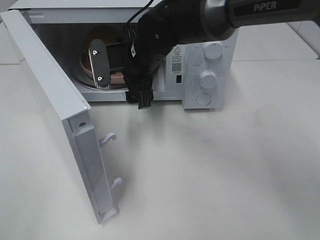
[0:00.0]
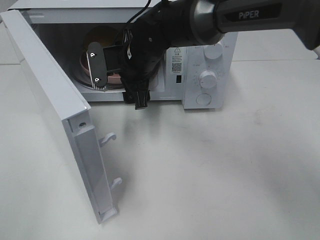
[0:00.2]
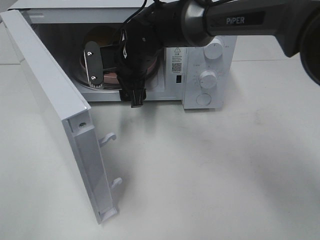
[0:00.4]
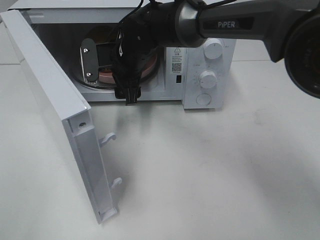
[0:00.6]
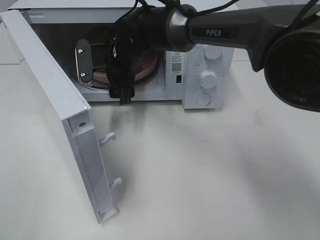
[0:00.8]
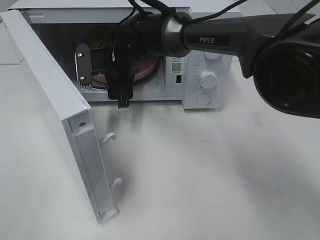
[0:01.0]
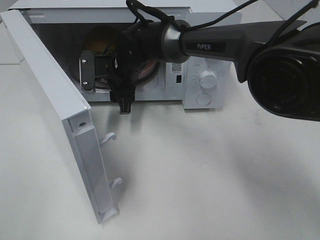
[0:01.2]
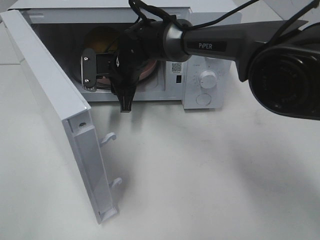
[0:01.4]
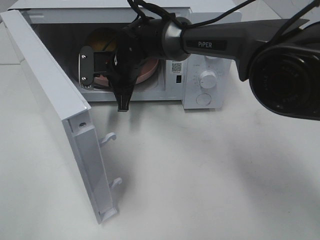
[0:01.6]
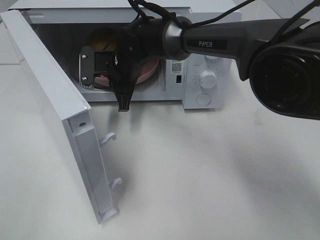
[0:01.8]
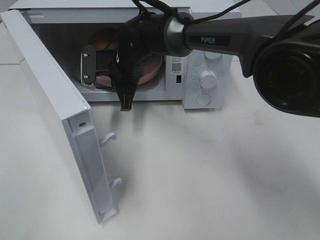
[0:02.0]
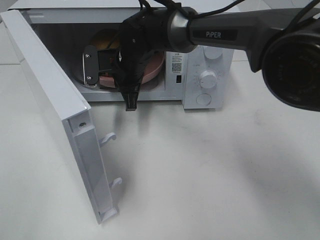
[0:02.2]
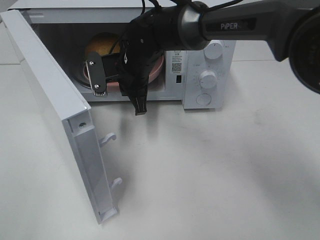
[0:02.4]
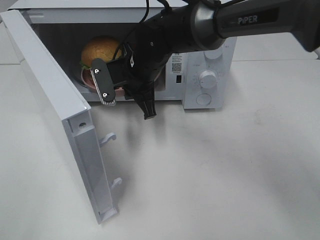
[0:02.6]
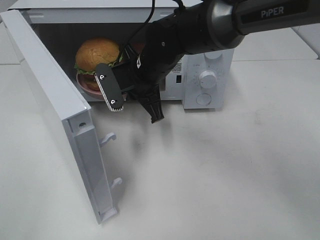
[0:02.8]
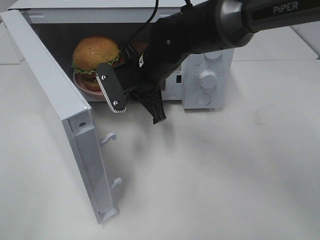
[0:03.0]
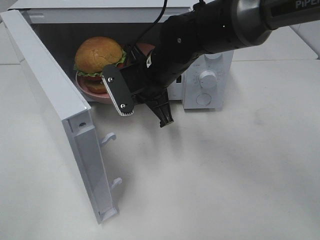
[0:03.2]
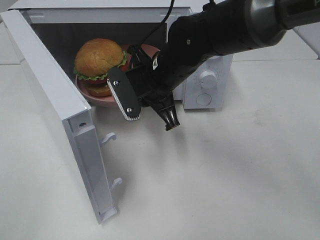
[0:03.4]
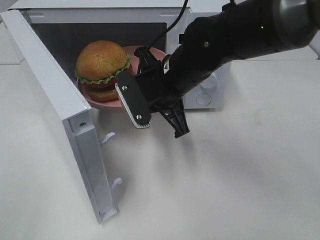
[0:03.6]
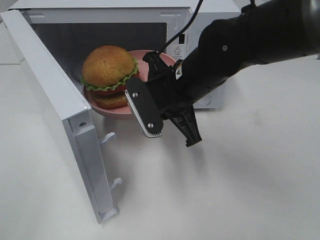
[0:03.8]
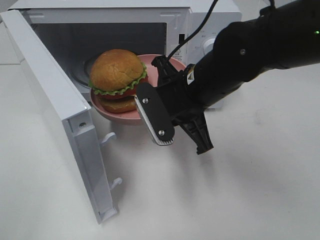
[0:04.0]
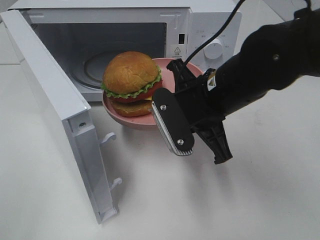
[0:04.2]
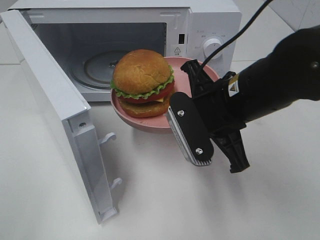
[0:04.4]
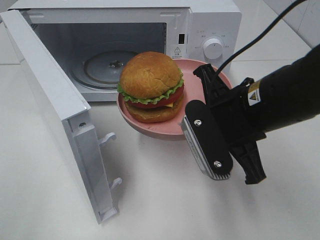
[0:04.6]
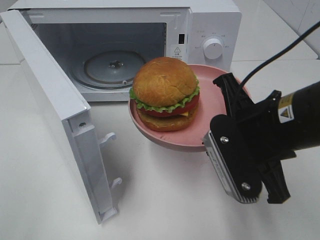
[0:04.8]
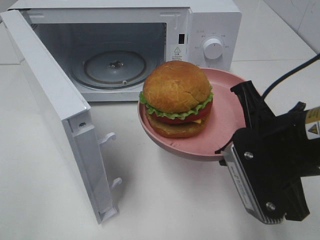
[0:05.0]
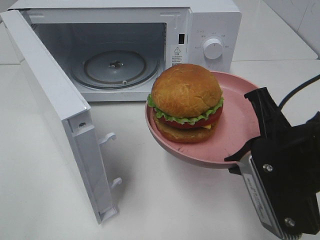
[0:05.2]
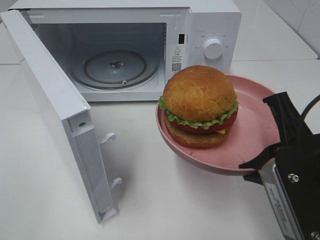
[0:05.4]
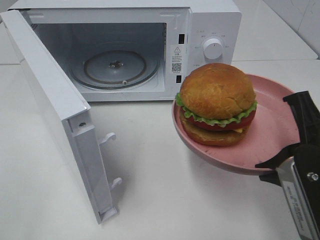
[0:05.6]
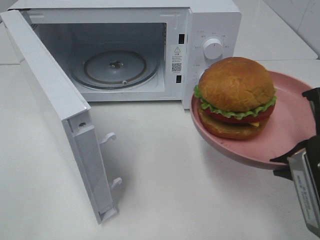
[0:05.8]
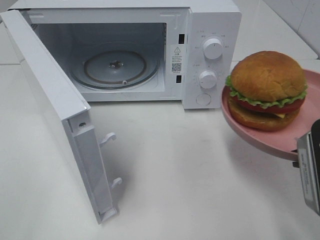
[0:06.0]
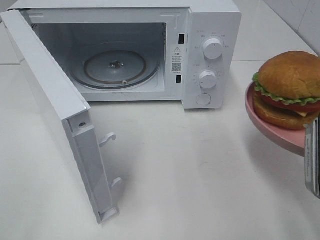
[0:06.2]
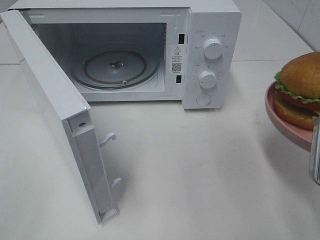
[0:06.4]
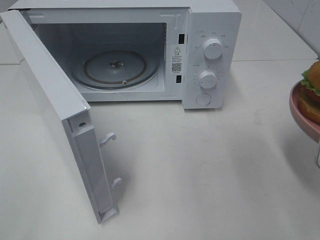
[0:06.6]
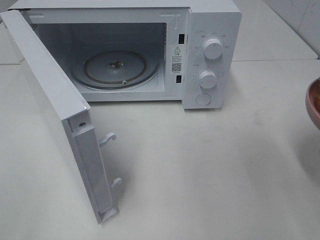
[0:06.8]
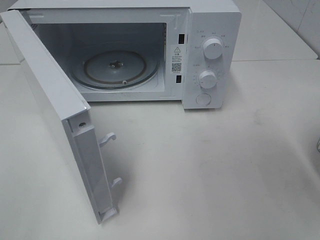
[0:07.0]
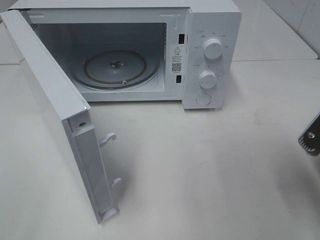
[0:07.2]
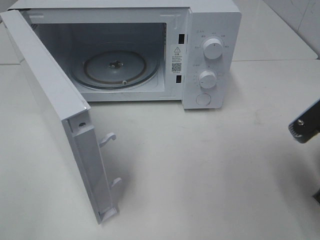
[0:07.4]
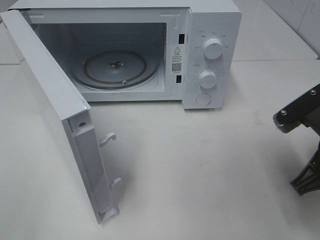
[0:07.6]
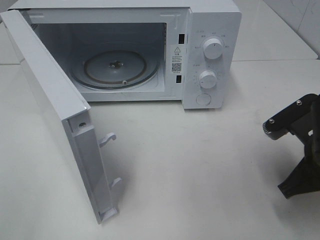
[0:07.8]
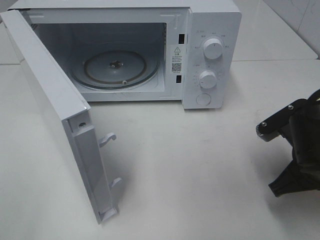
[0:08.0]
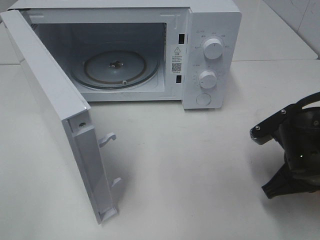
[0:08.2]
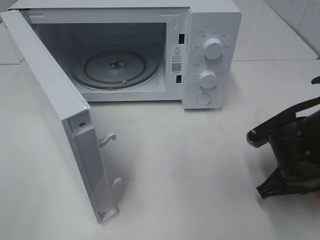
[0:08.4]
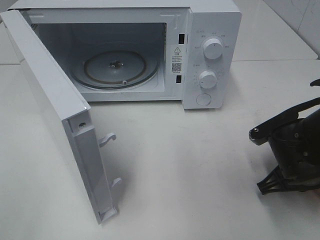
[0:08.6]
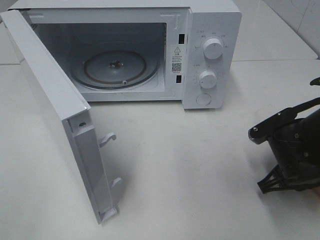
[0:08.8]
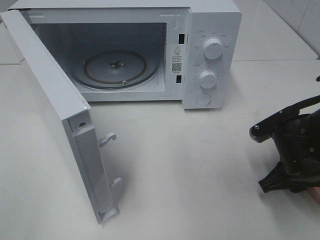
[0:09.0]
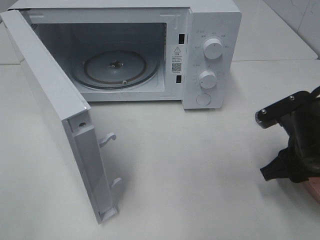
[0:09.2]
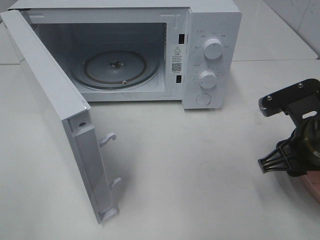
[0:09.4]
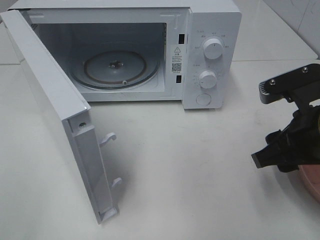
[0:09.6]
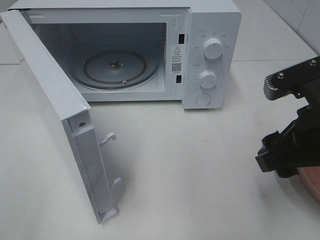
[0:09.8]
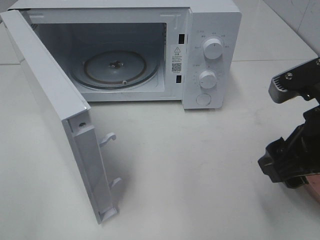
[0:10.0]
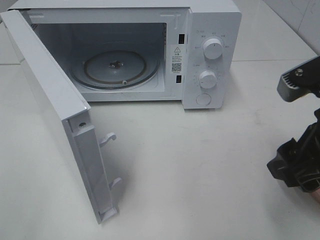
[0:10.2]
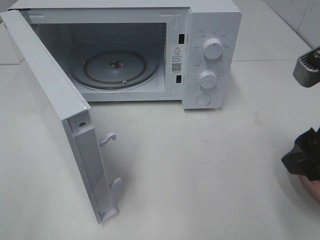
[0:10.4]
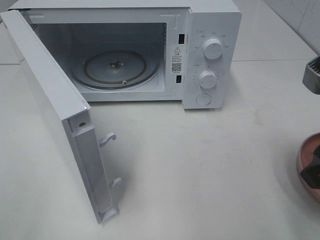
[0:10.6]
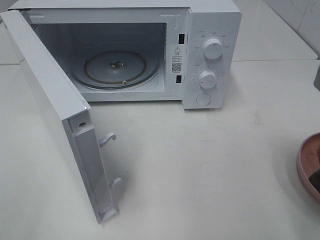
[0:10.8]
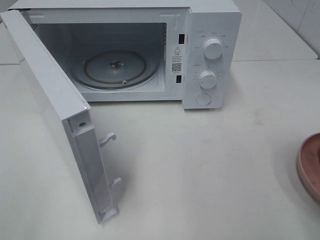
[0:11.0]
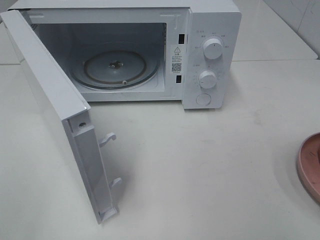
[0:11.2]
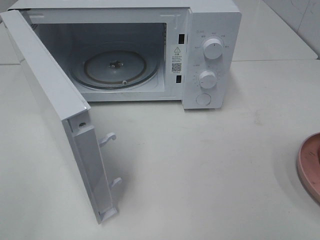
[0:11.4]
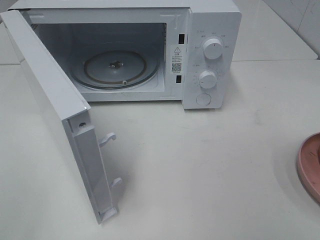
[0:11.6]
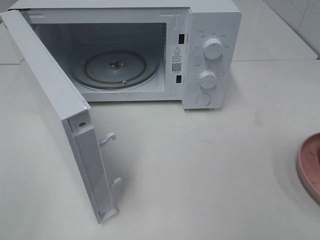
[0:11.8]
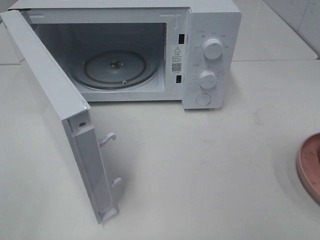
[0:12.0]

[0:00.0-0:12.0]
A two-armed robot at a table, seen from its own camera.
Task of the whole recording: Heat the burger.
Step, 0:01.8 to 0:09.4: Right hand: place the plate on the table.
0:00.0 to 0:01.6: The right gripper shifts by some 5 cm, and closes its fingers.
0:01.6 to 0:03.0: The right gripper goes about 5 cm backward.
0:03.0 to 0:04.4: The right gripper heads backward and to the right, covering roughly 15 cm.
0:04.4 to 0:06.0: The right gripper is displaced to the right and backward by about 15 cm.
0:06.0 to 0:07.6: The right gripper moves some 5 cm.
0:07.6 to 0:09.0: The right gripper goes some 10 cm downward, and opens.
0:09.0 to 0:10.4: The right gripper travels upward and backward by approximately 20 cm.
0:10.4 to 0:12.0: The right gripper moves backward and to the right, some 15 cm.

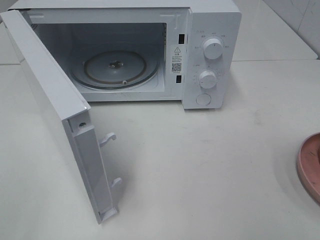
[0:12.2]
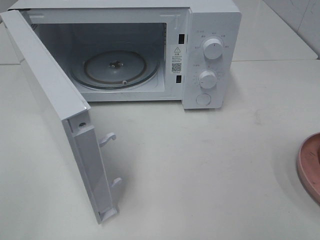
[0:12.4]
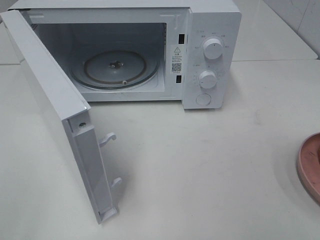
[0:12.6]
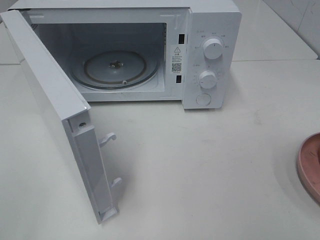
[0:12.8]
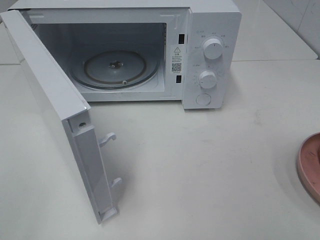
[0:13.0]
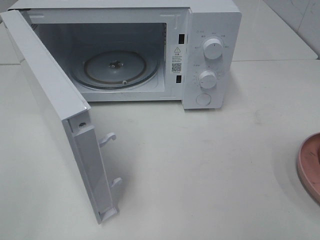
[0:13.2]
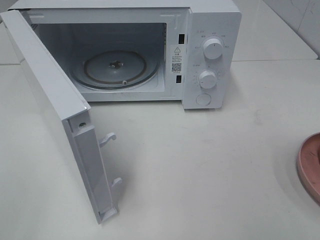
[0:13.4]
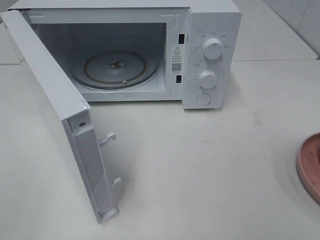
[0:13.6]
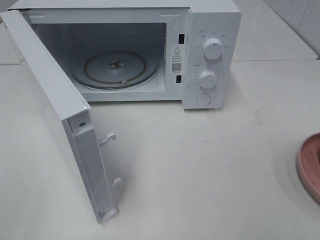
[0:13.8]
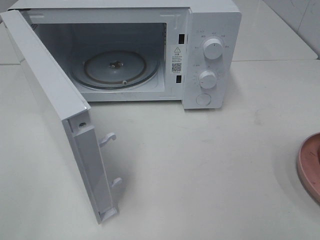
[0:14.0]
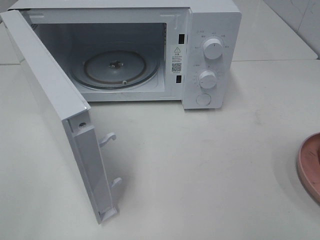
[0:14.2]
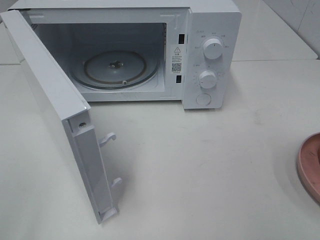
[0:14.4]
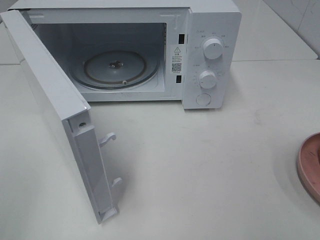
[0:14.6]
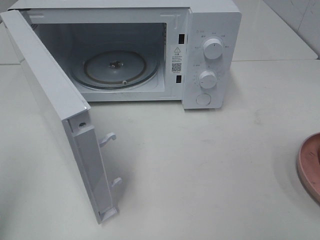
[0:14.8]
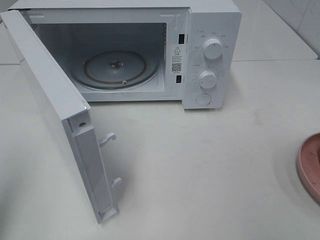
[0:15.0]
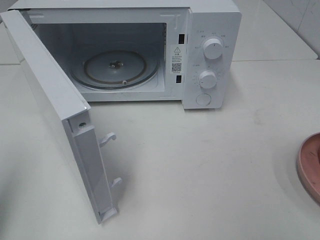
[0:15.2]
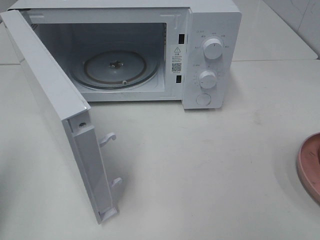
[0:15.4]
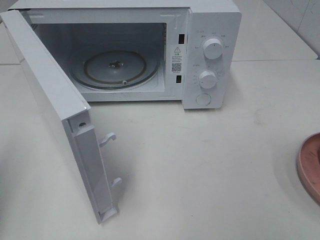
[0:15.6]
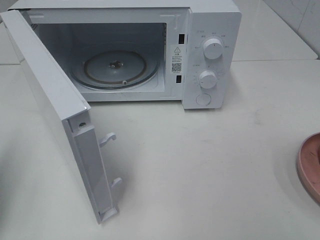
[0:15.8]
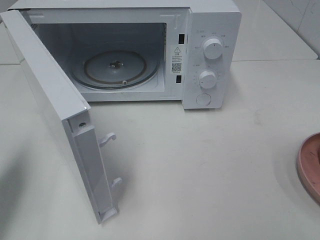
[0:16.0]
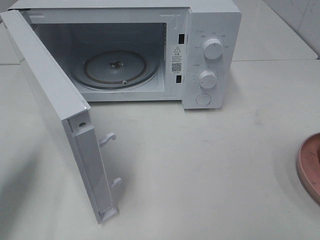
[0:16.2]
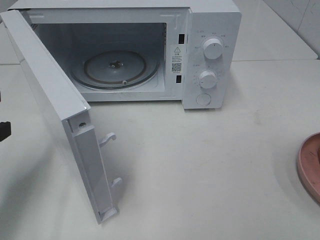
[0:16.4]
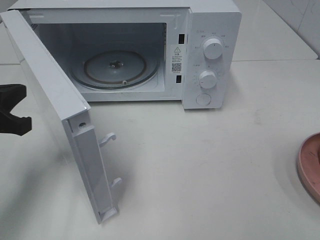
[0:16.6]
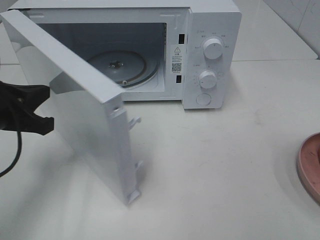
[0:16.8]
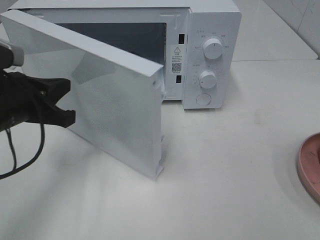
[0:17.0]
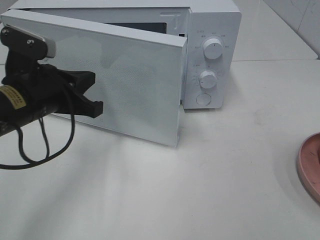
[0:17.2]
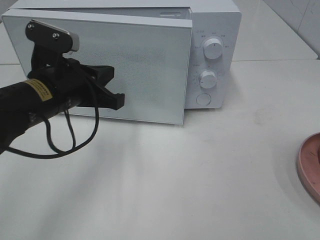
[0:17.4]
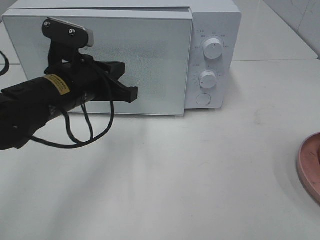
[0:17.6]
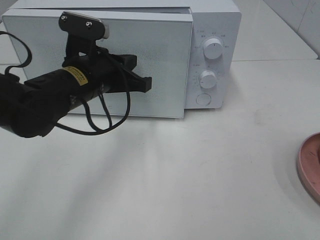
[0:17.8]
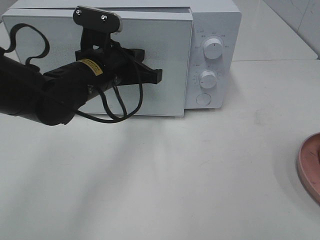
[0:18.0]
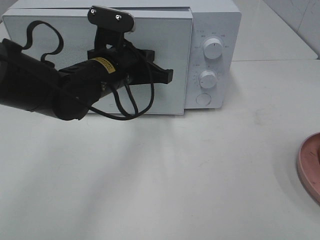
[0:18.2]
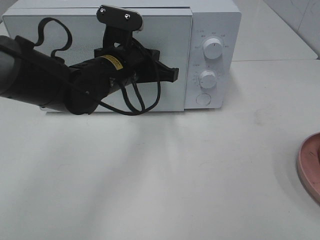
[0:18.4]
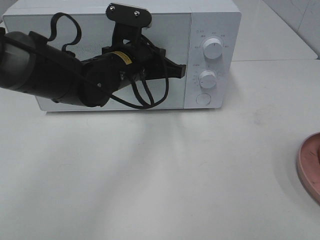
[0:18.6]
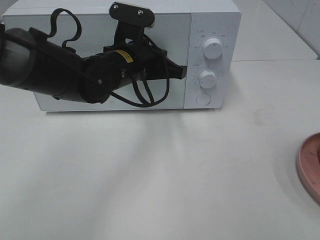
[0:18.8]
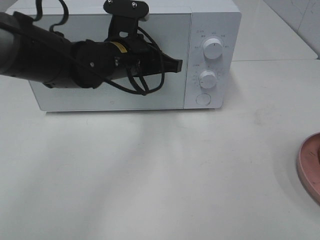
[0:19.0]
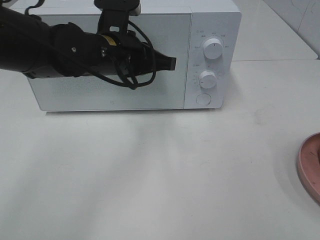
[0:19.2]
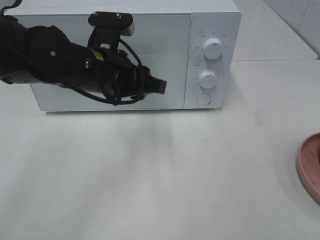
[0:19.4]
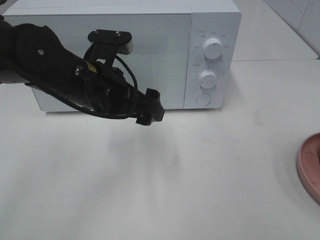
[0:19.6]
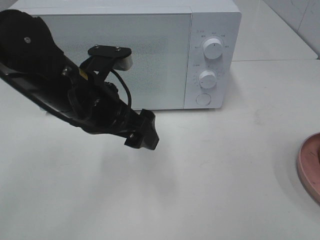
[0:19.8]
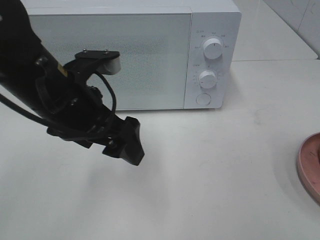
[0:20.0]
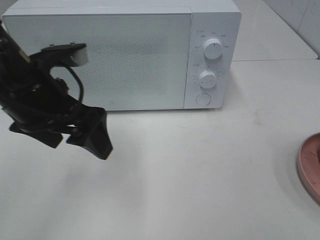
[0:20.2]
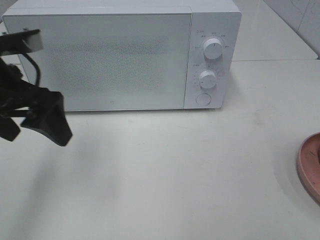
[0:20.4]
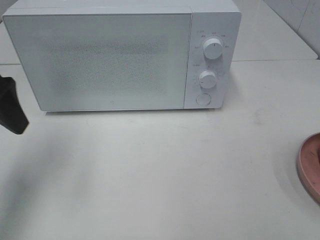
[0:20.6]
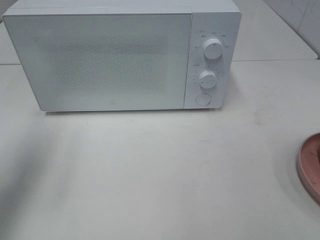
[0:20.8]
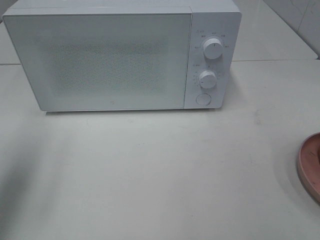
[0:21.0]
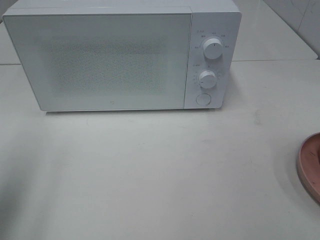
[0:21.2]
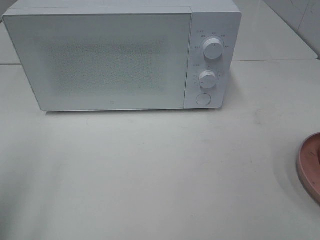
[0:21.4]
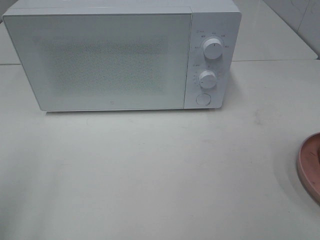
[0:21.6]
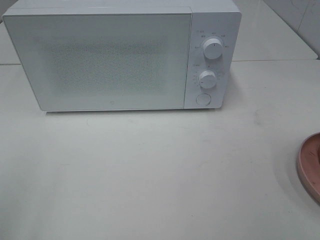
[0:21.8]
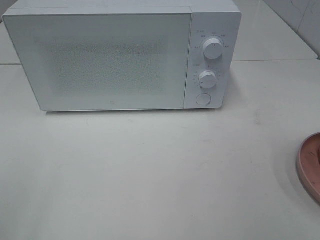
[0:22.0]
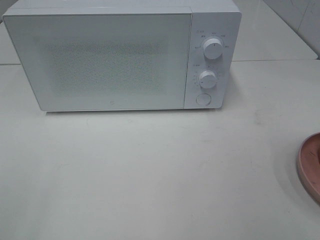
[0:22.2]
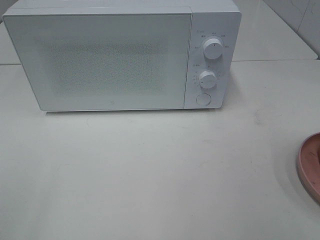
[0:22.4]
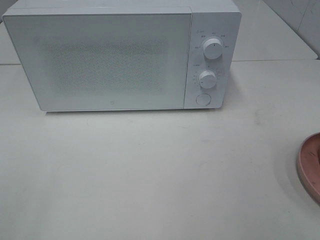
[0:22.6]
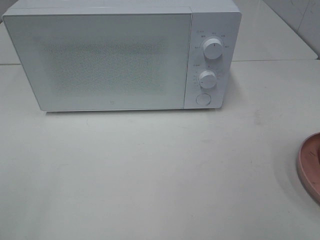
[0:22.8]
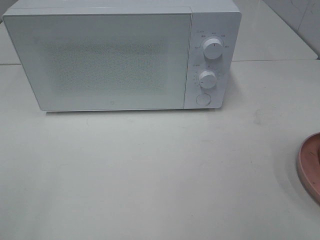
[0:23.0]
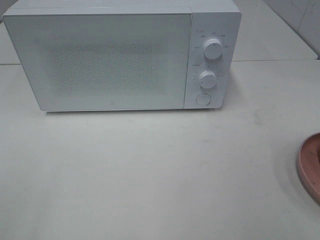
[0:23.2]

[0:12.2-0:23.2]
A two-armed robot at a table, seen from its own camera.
Task of the whole recording: Heat the burger.
Step, 0:12.2 to 0:19.4: Left hand: close the microwave door.
0:12.2 to 0:13.8: Both grippers stay put.
0:15.4 to 0:17.0: The left gripper heads forward, to the right and downward, covering some 20 cm.
0:17.0 to 0:18.4: The left gripper moves to the right and forward, roughly 15 cm.
0:18.4 to 0:20.0: The left gripper shifts approximately 10 cm backward and to the left, and opens.
0:20.0 to 0:21.6: The left gripper moves to the left and backward, roughly 25 cm.
